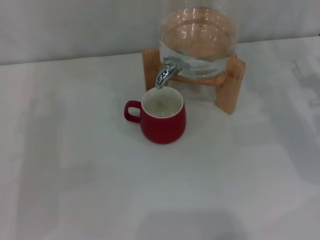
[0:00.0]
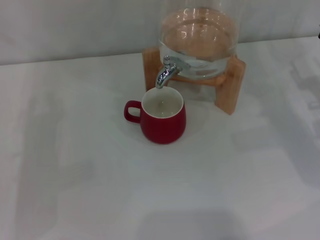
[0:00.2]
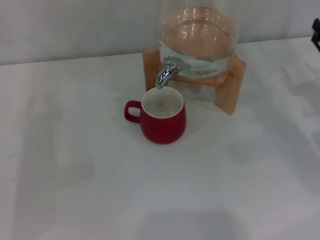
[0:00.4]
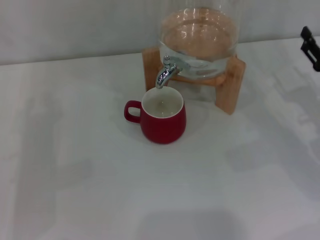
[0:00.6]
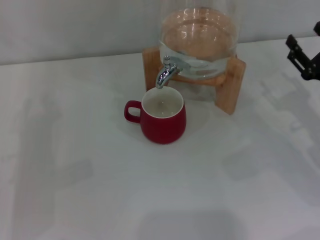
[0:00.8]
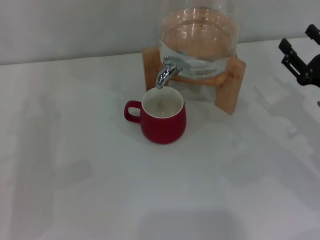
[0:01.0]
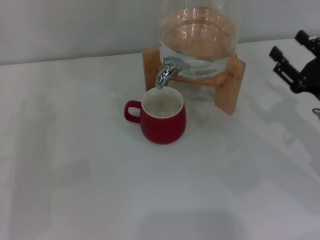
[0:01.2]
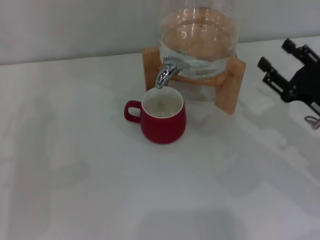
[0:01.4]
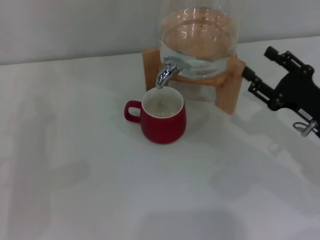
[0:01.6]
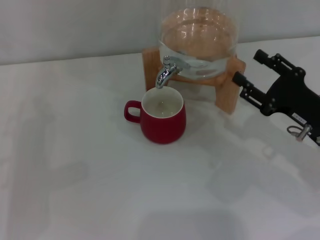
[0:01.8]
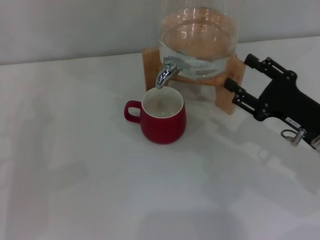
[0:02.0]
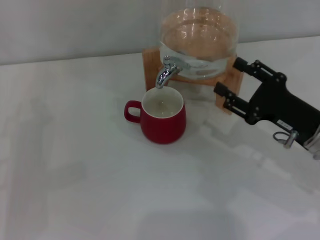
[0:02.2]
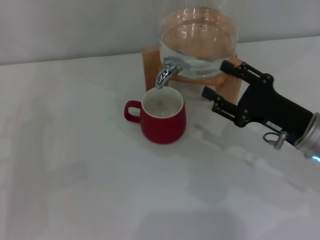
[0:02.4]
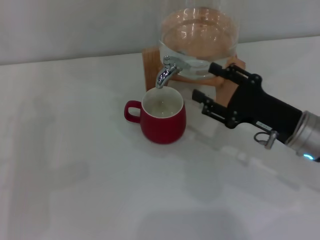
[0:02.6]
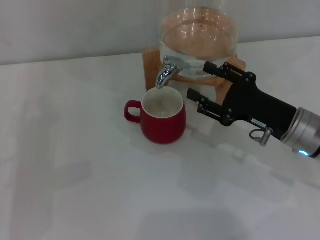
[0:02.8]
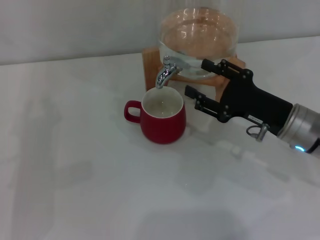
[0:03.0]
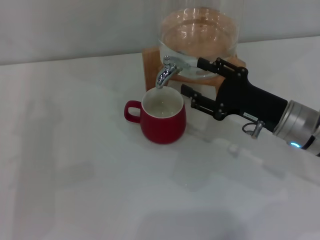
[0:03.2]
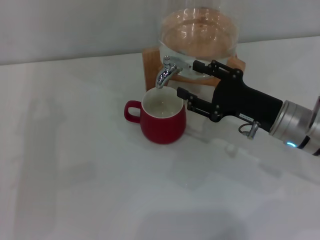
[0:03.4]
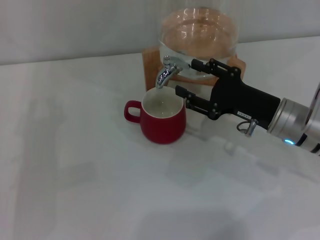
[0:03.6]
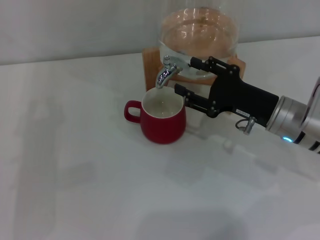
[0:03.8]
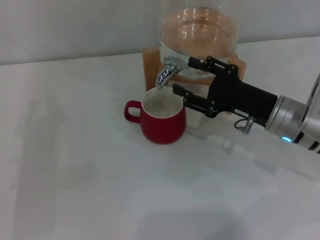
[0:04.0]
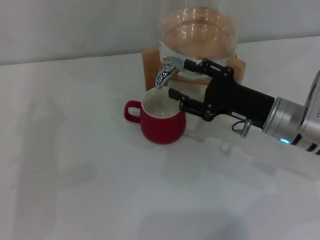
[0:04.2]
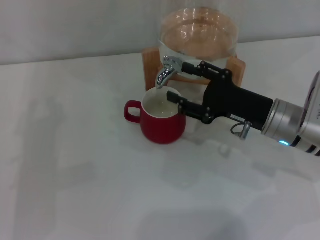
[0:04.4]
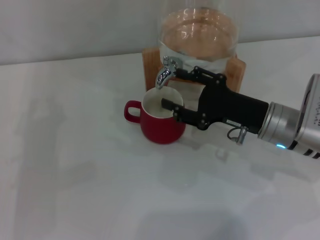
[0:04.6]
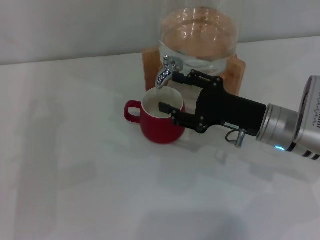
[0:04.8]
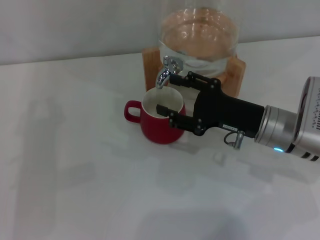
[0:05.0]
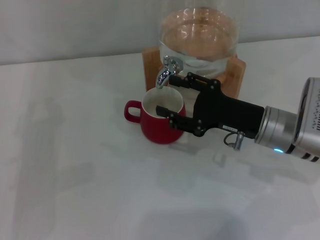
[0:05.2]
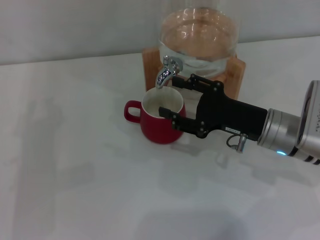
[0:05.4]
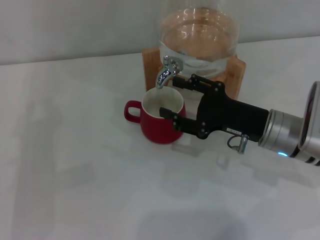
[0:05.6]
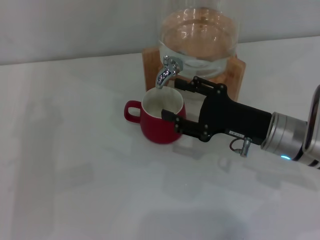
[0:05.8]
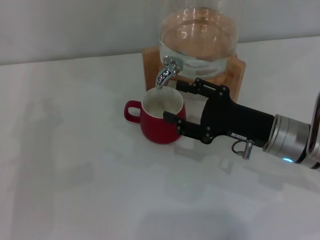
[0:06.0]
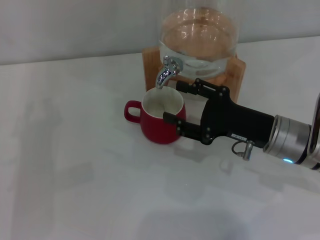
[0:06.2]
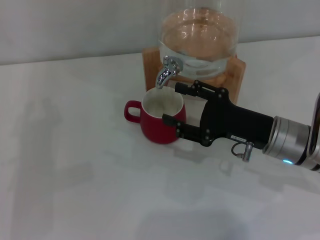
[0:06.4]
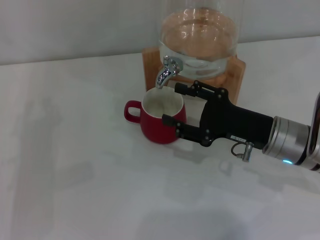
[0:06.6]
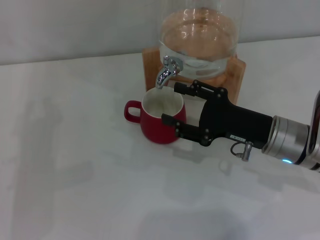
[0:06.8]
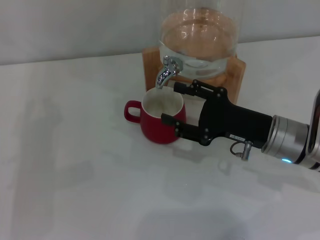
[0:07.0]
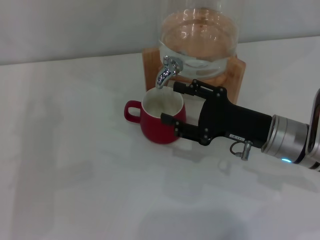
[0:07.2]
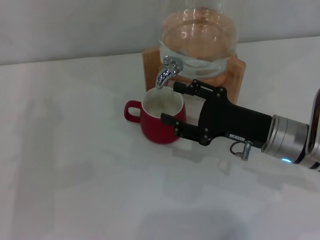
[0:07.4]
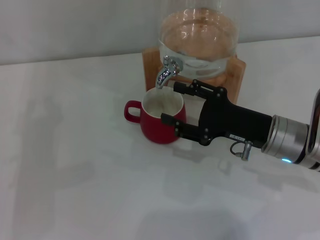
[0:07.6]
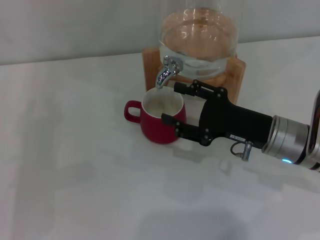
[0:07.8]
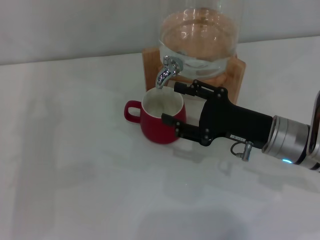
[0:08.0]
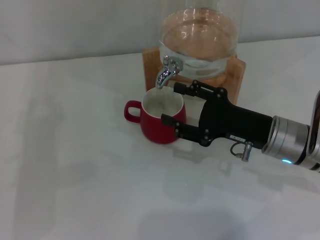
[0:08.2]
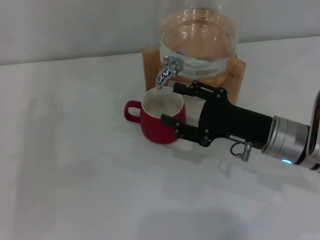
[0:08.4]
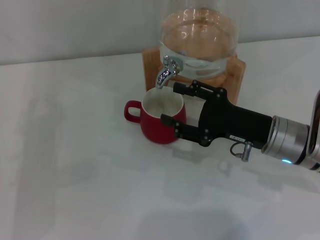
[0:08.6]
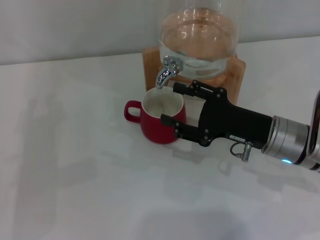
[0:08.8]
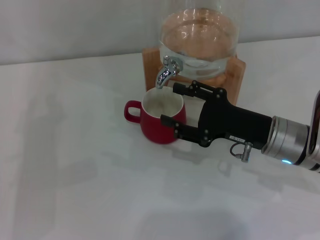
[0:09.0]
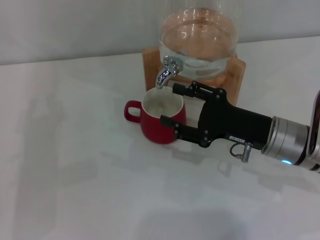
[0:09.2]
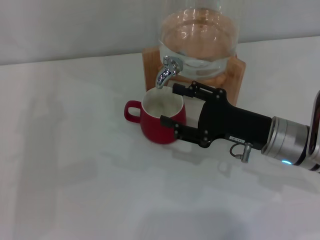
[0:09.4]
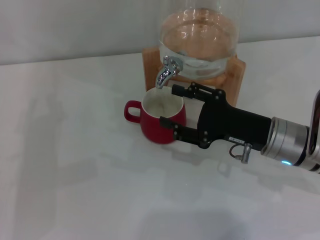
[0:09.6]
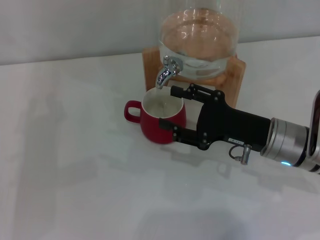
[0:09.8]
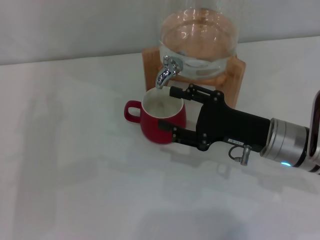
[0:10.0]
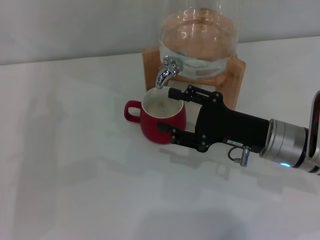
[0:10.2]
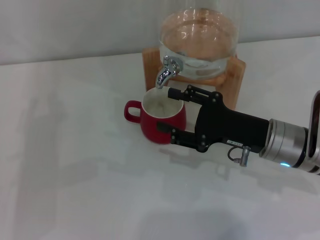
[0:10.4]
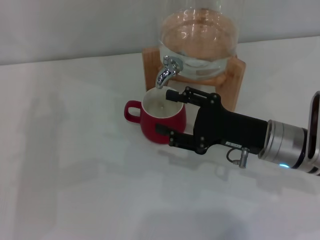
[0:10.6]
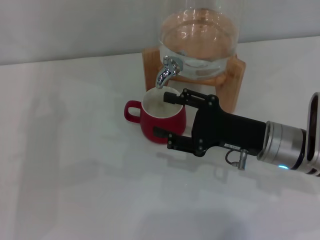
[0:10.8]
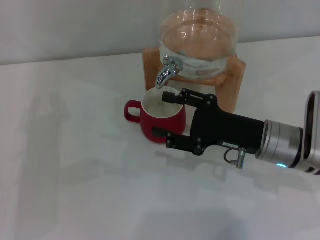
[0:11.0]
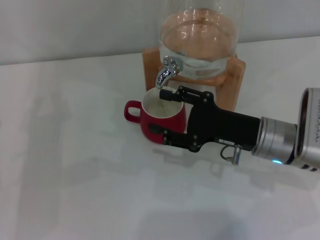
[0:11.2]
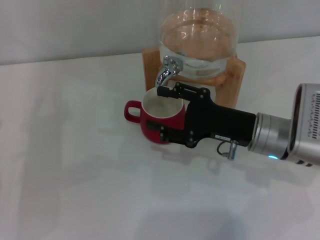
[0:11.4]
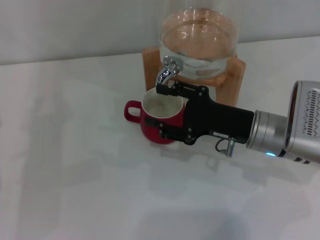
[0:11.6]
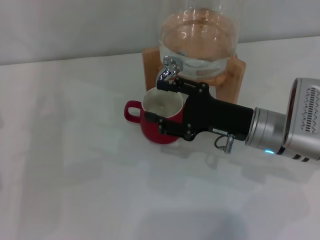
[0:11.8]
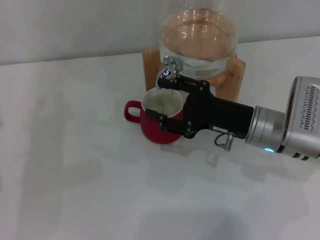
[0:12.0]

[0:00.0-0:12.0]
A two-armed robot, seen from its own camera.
Task of the whole recording: the left gripper pick up the red cup and place it horizontally under the faucet, the right gripper turn on the faucet to fill the cup, and then turn off the faucet.
0:00.0 to 0:01.6: The right gripper moves to the left and backward, about 10 cm.
0:01.6 to 0:03.0: The right gripper moves to the left, approximately 5 cm.
0:03.0 to 0:06.0: The grippers make only small movements.
0:06.0 to 0:10.4: Neither gripper changes place.
0:10.4 to 0:12.0: The grippers make only small movements.

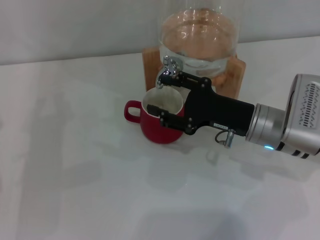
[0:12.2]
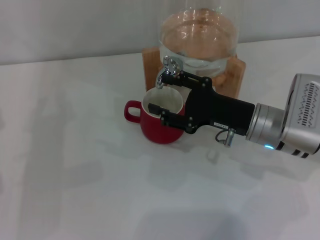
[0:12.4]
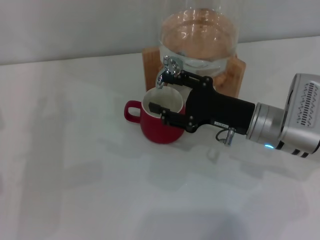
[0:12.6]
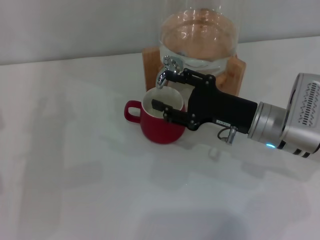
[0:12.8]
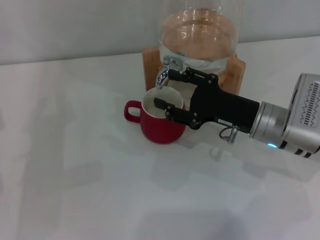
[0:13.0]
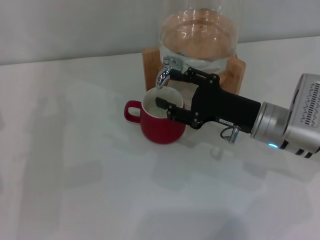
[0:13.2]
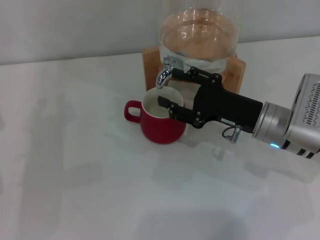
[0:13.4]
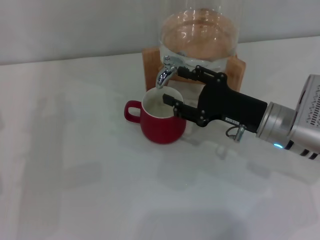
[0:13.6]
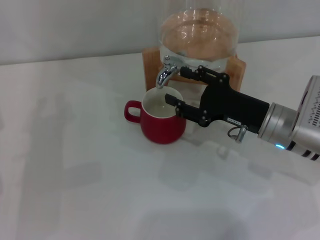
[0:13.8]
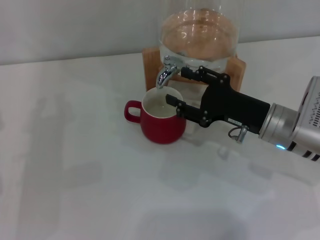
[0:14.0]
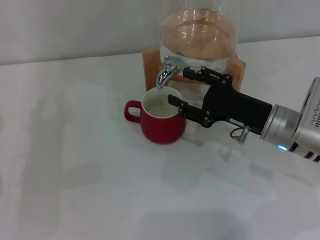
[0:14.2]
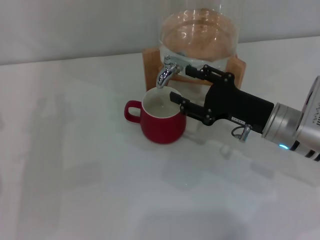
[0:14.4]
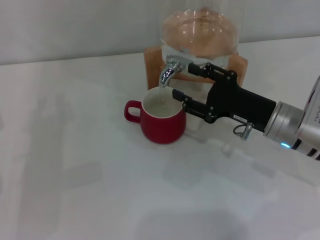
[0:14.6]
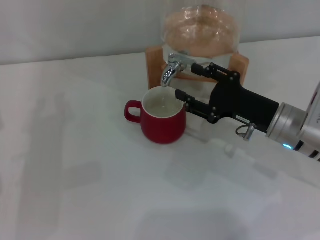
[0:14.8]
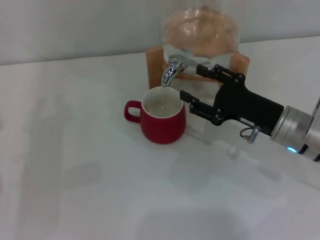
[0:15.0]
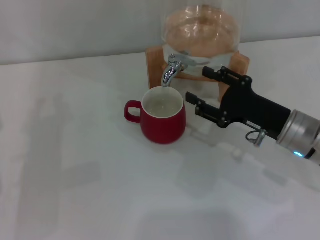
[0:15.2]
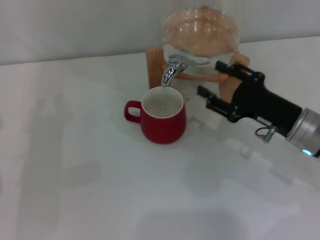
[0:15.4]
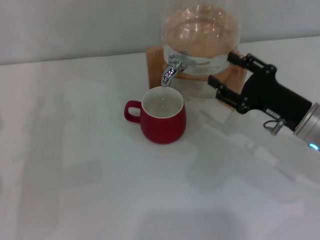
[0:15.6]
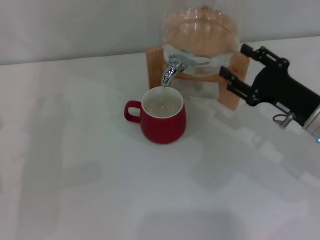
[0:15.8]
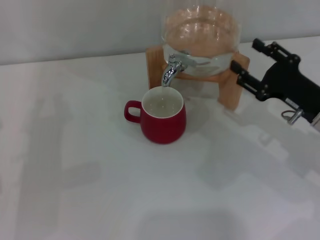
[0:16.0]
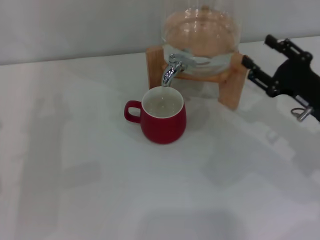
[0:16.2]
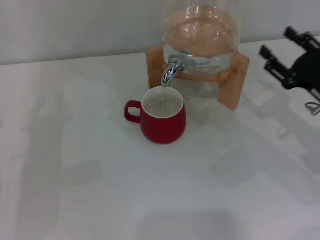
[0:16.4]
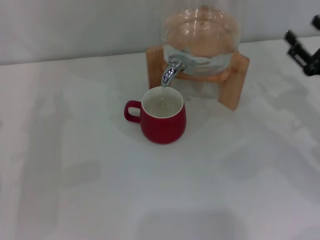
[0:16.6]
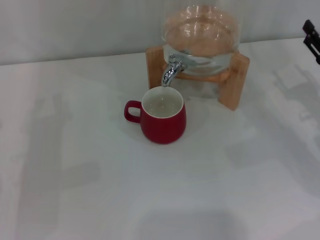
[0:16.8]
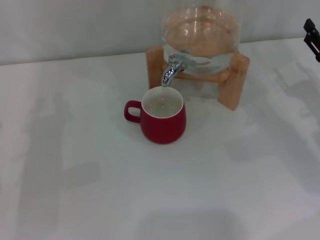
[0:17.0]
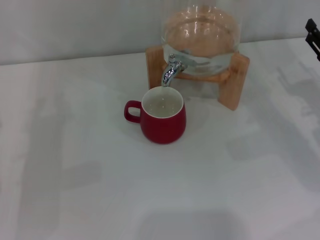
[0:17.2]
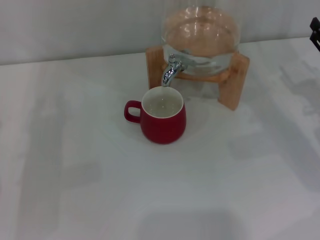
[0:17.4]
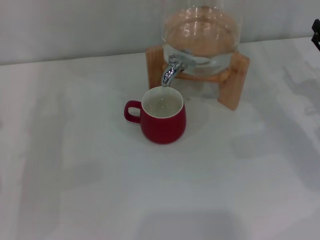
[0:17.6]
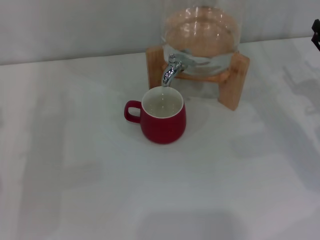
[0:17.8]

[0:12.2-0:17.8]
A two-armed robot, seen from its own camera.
Task of the whole recording: the left gripper pick up the red cup and place it horizontally under the faucet, the right gripper turn on the faucet to fill the cup, and then turn off the faucet.
Step, 0:12.2 to 0:15.2: Close the dispenser valve with the right gripper.
0:12.2 to 0:15.0: The grippers make only small movements.
0:15.0 to 0:16.4: The right gripper goes roughly 10 cm to the right.
0:16.4 to 0:17.8: The right gripper ends up some 5 cm from where it was.
